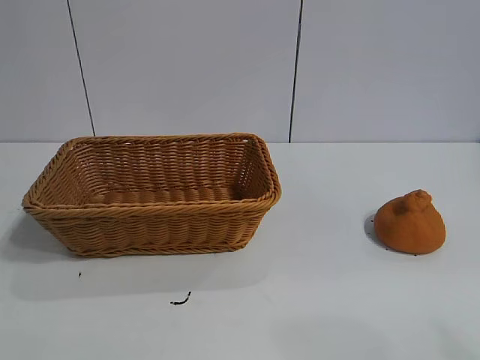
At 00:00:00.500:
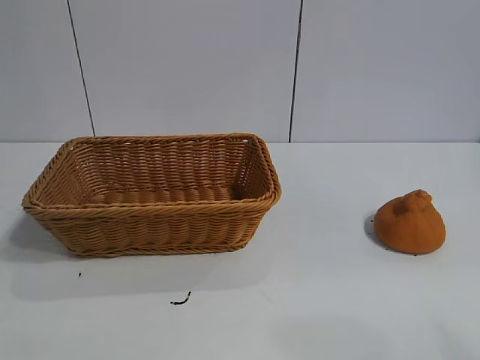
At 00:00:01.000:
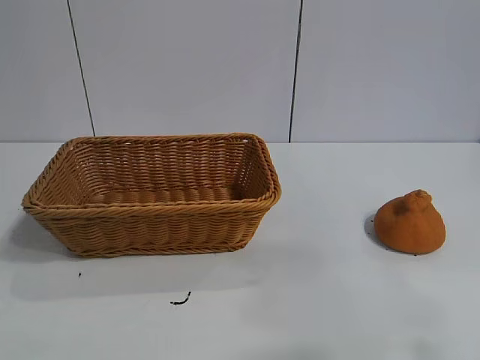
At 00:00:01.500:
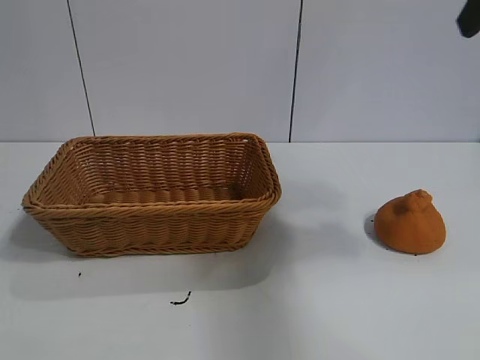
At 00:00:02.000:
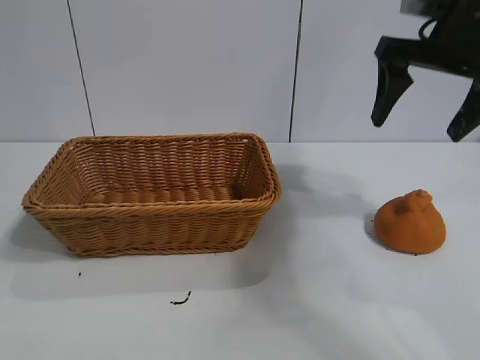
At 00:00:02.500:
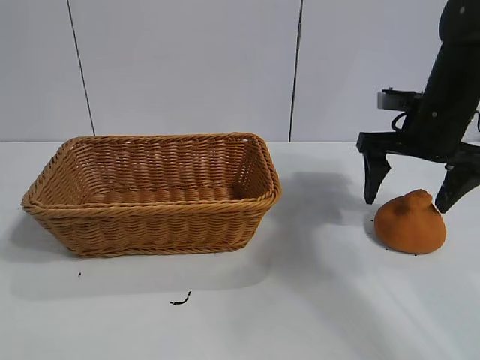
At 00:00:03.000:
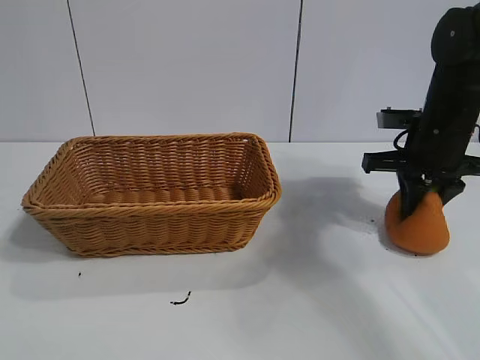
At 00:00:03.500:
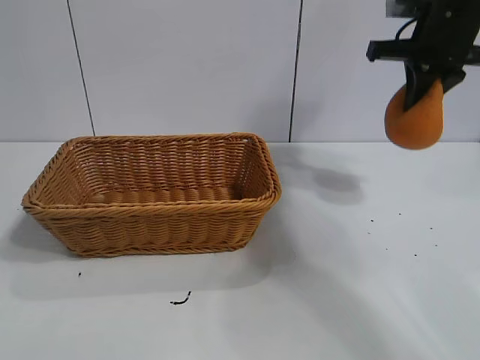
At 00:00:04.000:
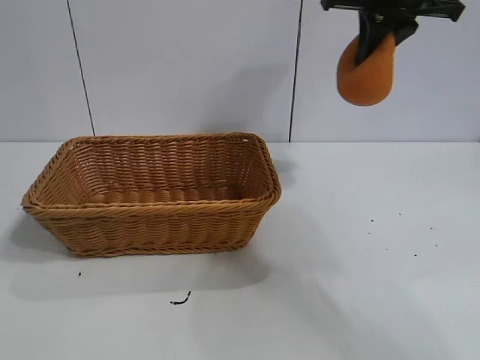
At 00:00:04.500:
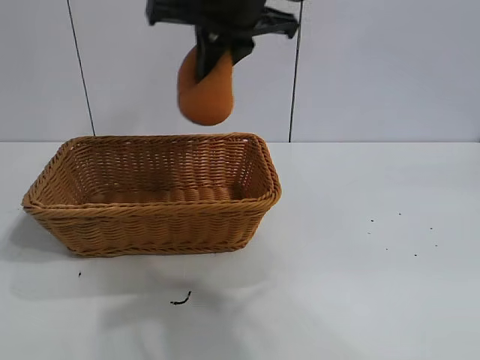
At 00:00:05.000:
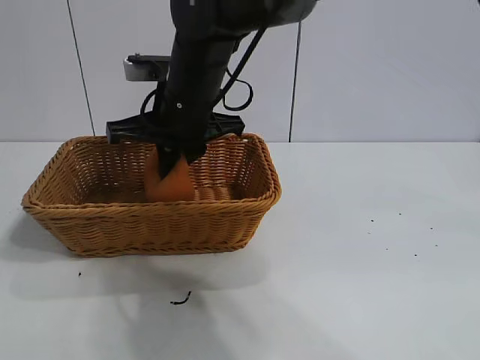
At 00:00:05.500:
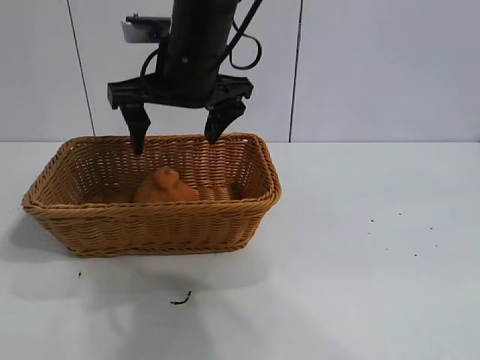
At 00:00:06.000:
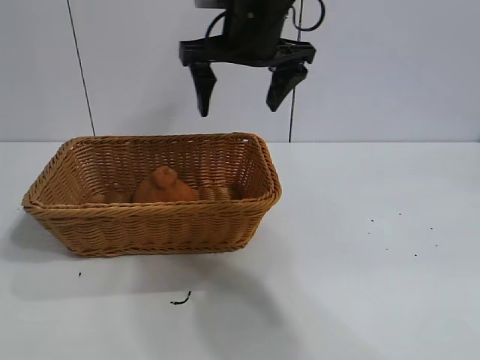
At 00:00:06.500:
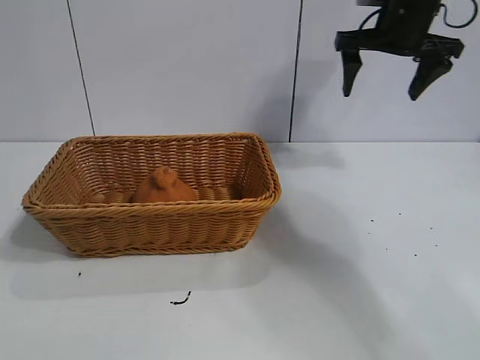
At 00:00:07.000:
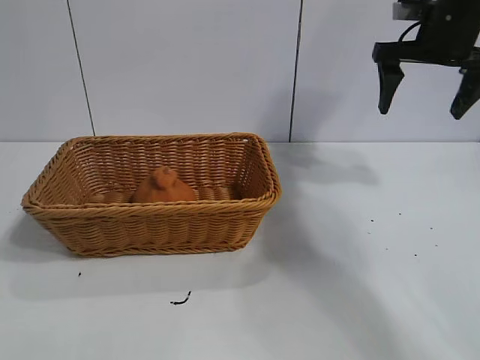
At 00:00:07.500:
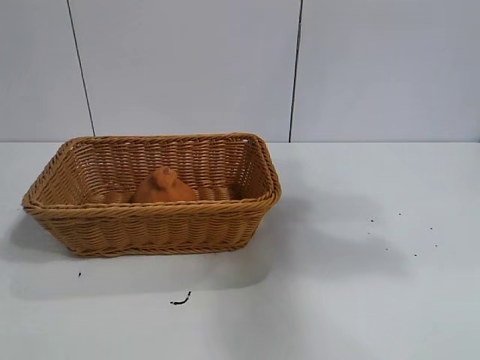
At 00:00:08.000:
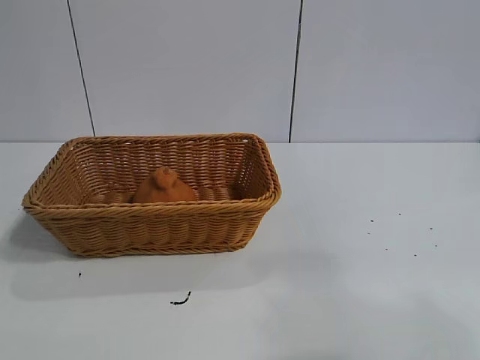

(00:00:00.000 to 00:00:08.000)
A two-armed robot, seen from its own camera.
Task of the whole recording: pick up the orange and put it into the basket.
Step, 00:00:01.000 - 00:00:03.000: Grasp the orange with right gripper.
Step, 00:00:03.500 - 00:00:05.000: Place the orange in the basket with right gripper.

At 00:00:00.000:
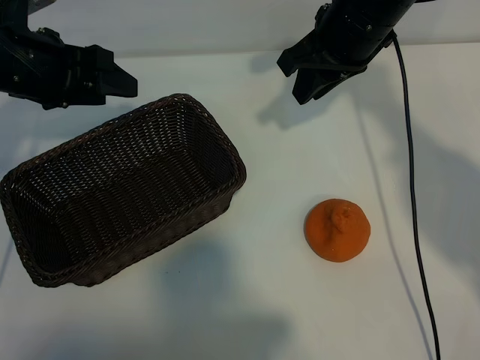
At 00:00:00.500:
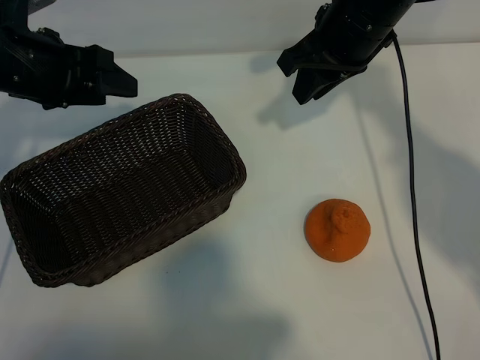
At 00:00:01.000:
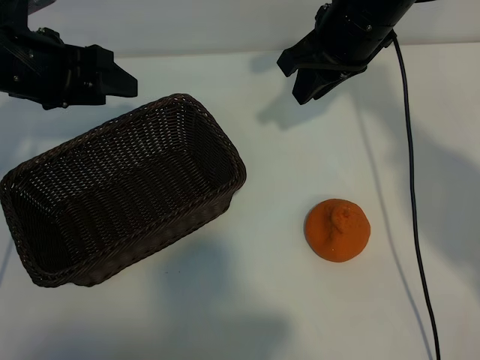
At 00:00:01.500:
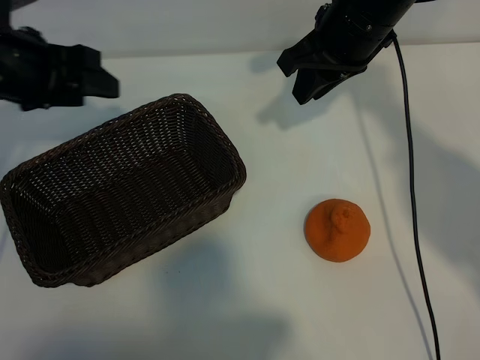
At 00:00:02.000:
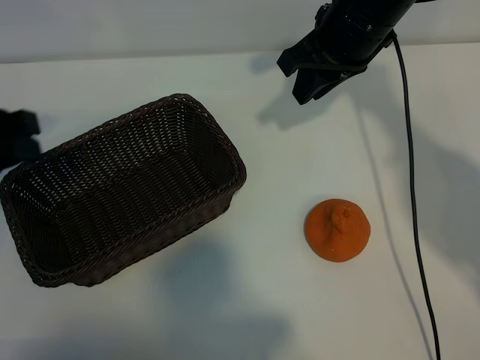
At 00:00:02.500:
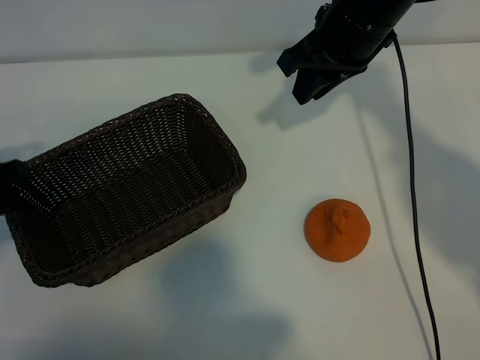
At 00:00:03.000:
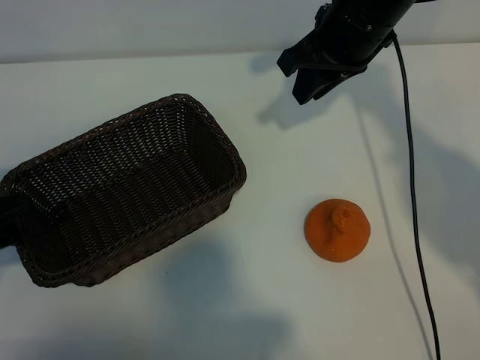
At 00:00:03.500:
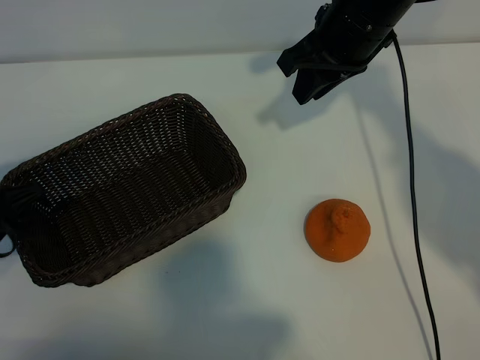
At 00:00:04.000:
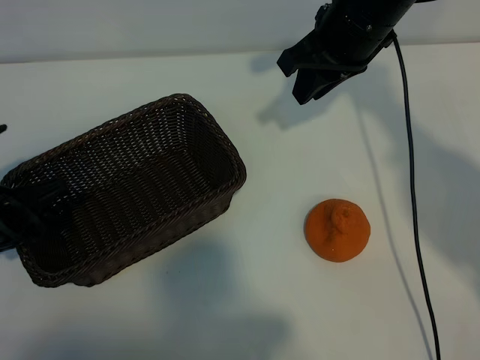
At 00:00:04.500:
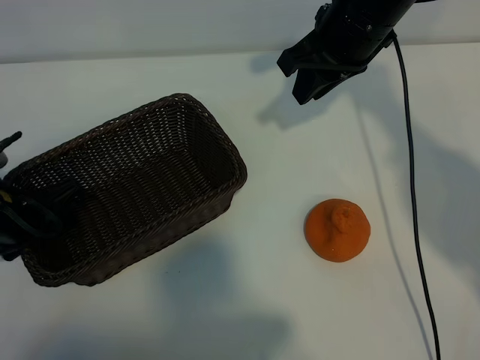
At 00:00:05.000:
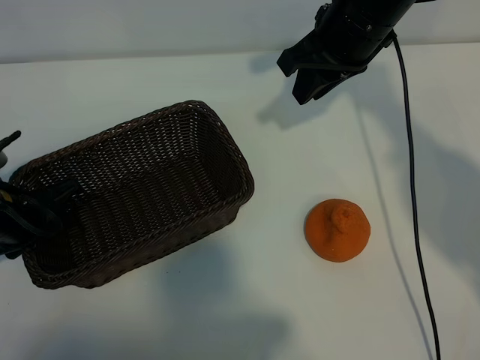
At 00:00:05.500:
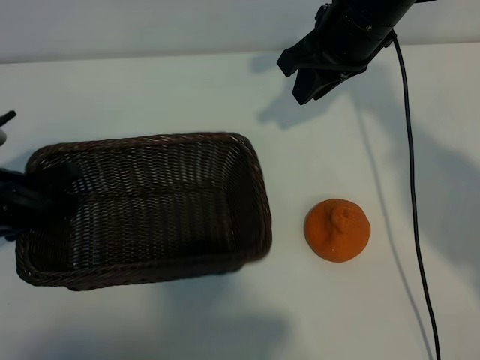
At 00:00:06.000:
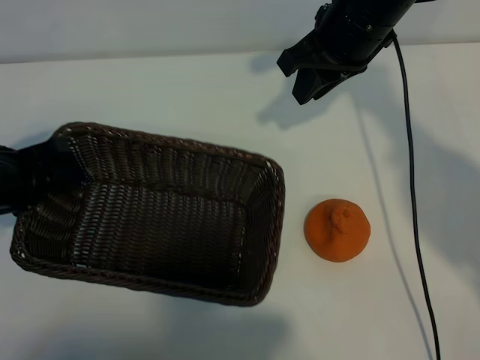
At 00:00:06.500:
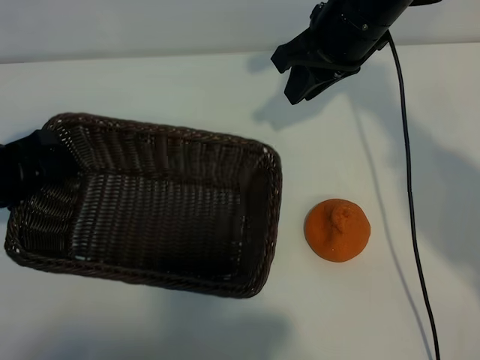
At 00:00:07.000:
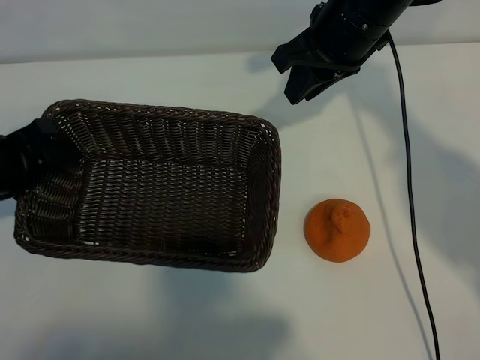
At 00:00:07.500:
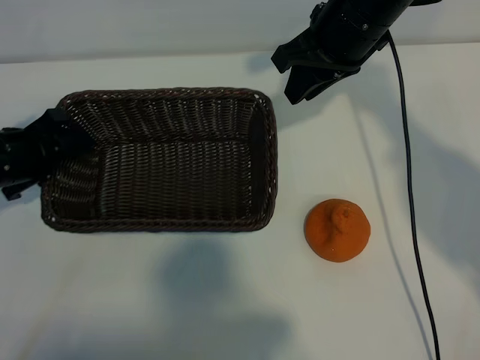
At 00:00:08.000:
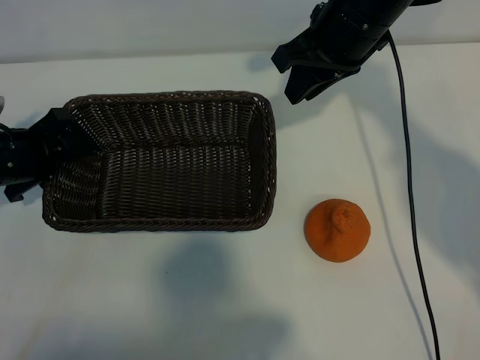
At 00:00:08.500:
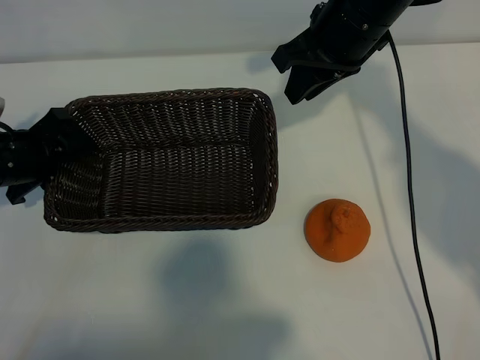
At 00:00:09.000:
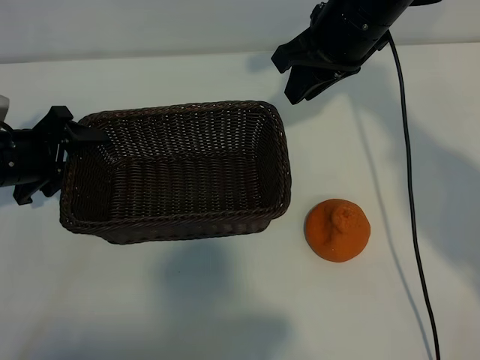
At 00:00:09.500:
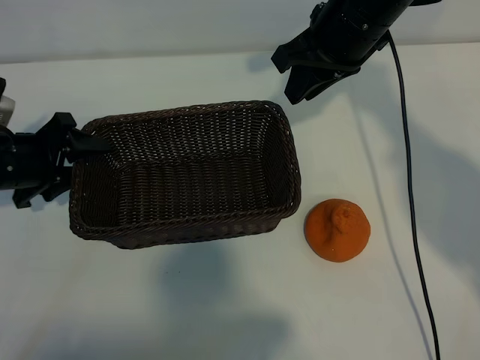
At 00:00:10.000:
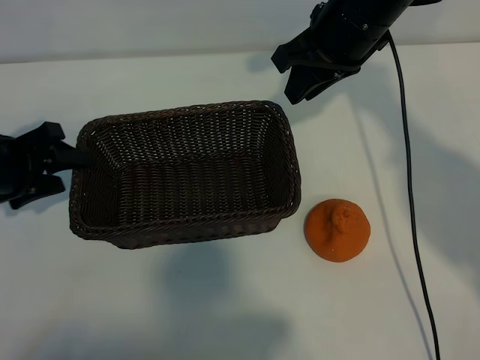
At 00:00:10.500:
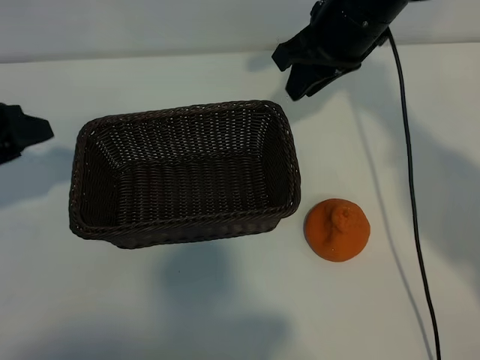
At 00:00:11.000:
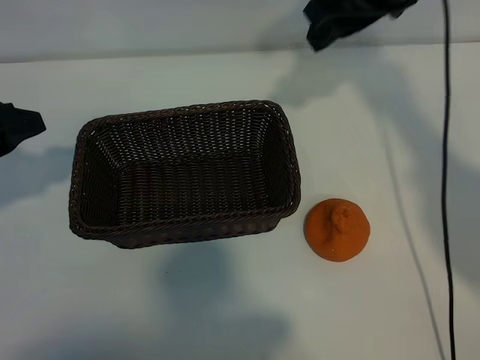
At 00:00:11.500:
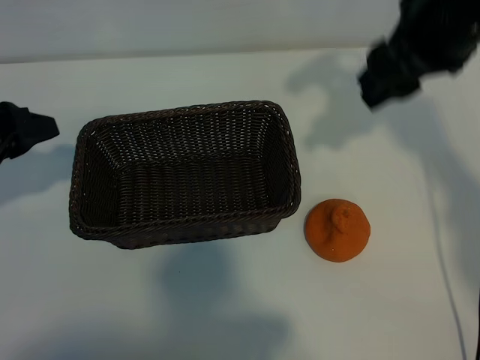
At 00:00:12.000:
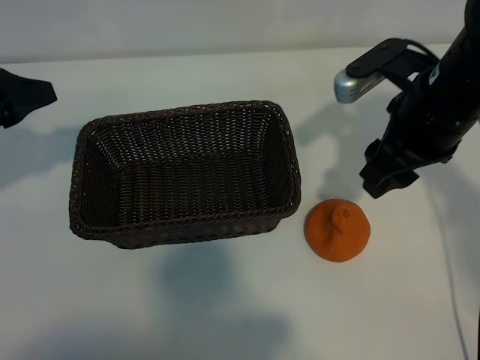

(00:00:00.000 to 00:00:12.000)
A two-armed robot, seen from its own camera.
Task of the whole recording: pick up the orange and put it into the basket.
Step, 00:00:01.500 - 00:00:04.500: Grasp the basket with left gripper.
Step, 00:00:05.000 - 00:00:09.000: Place the basket in the center of view with left gripper.

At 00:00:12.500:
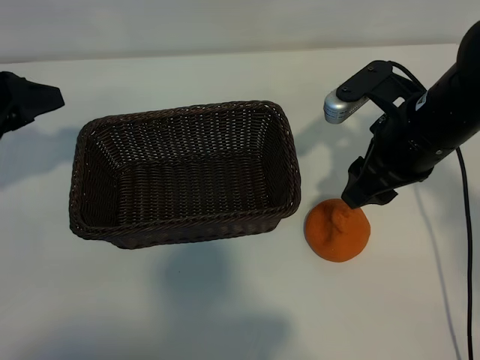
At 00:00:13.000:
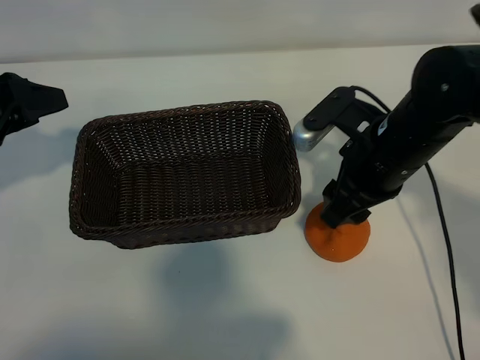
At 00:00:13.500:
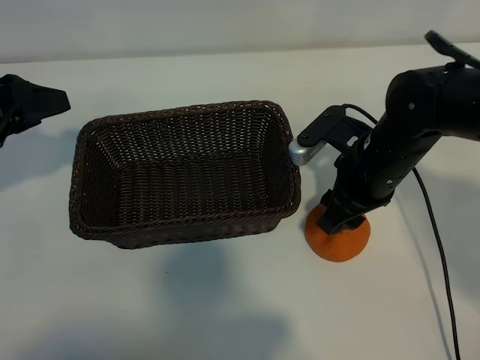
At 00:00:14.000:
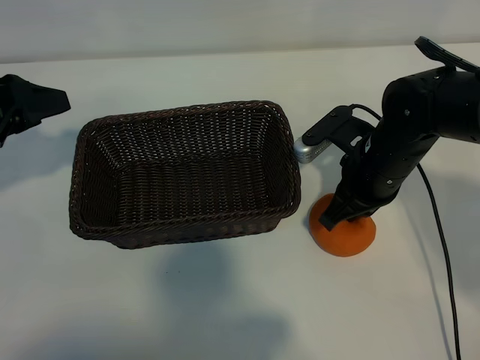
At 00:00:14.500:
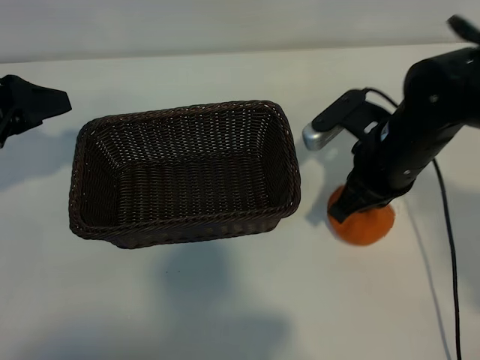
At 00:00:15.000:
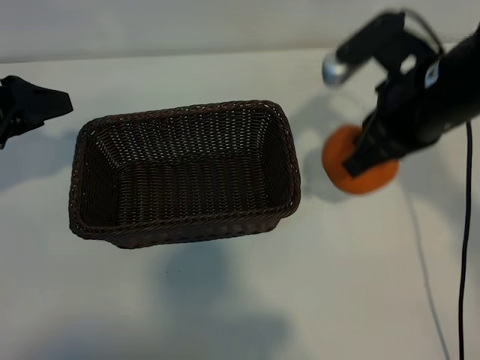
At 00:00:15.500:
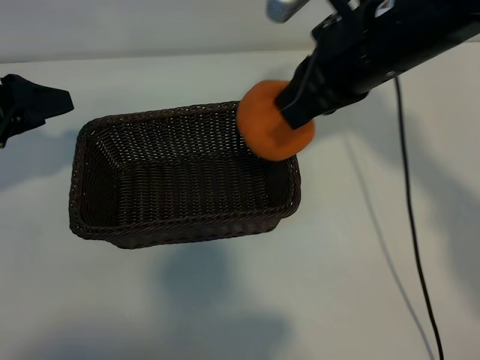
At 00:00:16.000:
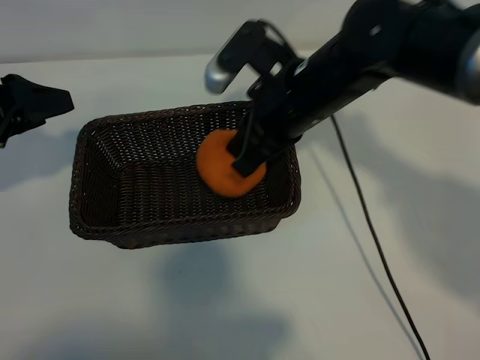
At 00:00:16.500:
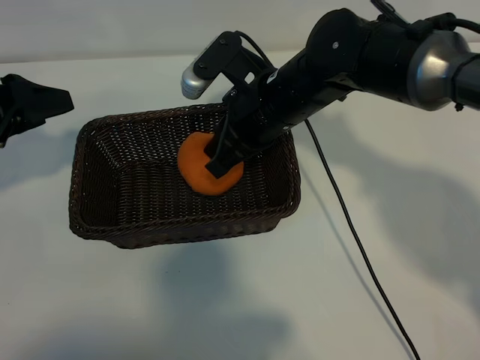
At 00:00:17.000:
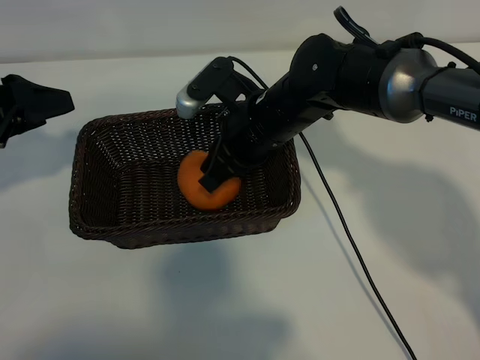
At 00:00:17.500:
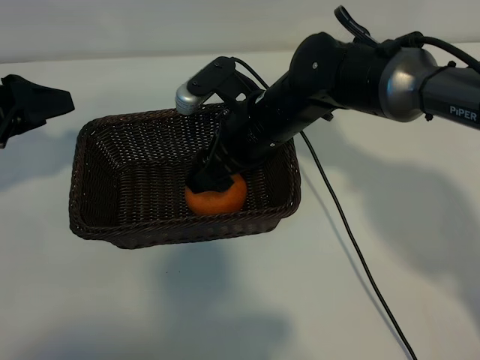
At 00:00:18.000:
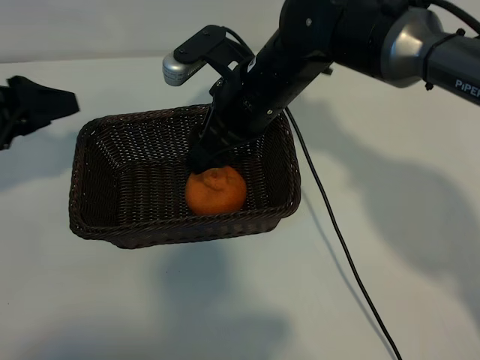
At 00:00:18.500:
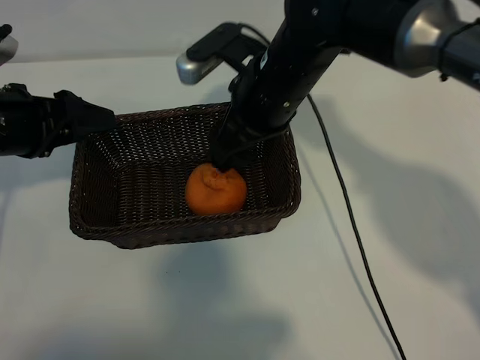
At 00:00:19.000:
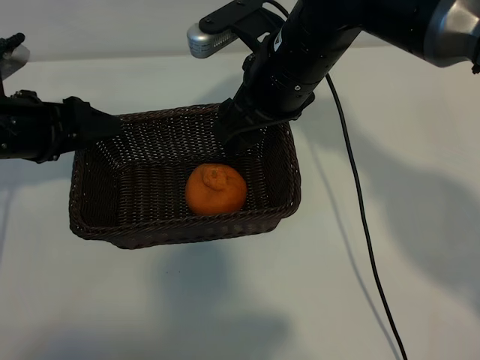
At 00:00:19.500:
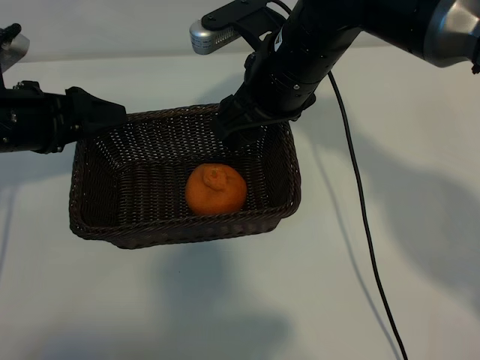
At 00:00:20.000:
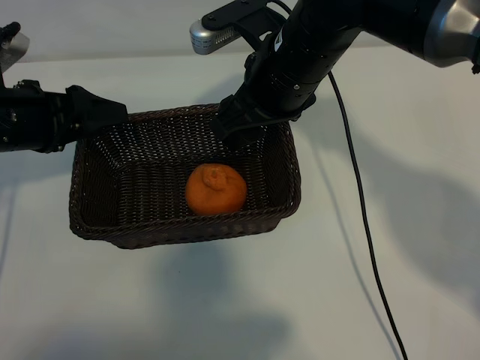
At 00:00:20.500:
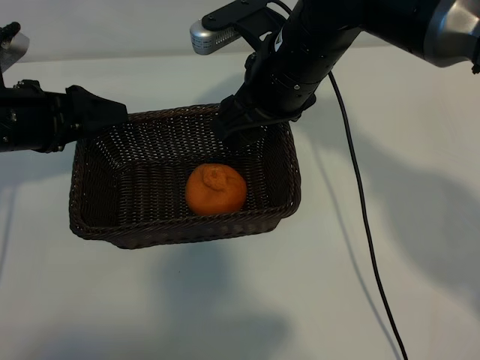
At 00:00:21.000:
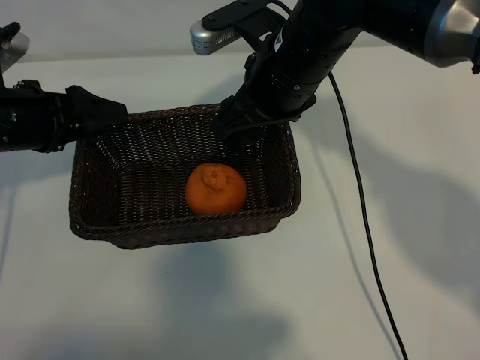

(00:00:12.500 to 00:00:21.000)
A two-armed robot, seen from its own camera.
Task of the whole recording: pick up the orange and put it into the basket.
Step, 00:00:14.500 - 00:00:17.000: Place the orange in the basket with right gripper.
